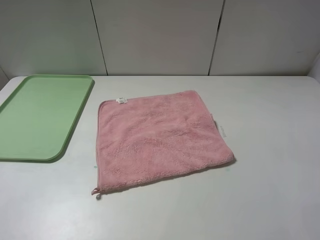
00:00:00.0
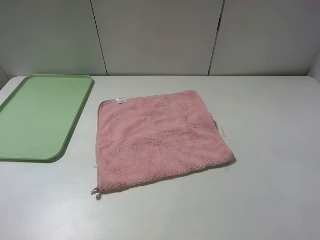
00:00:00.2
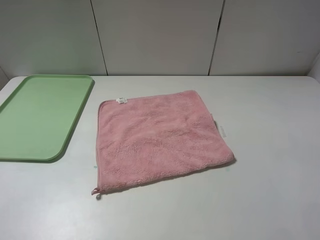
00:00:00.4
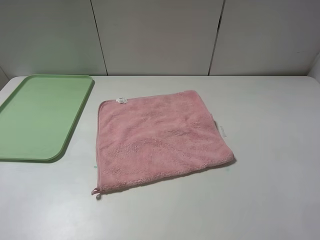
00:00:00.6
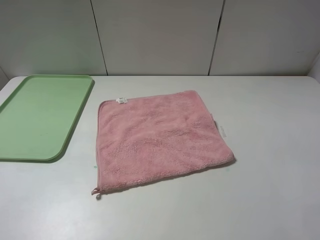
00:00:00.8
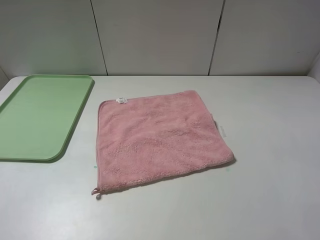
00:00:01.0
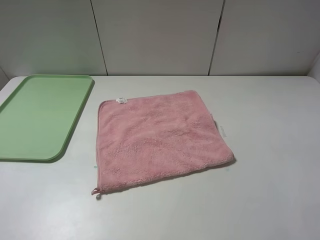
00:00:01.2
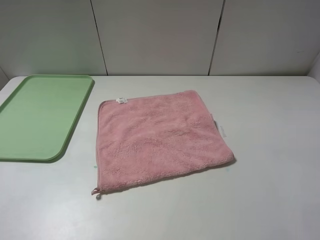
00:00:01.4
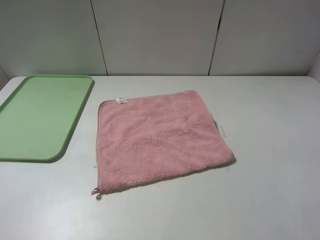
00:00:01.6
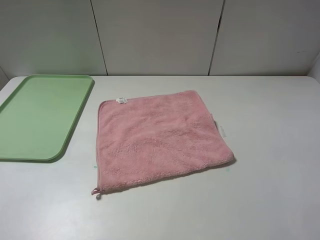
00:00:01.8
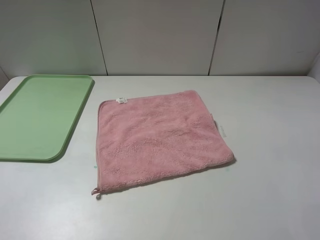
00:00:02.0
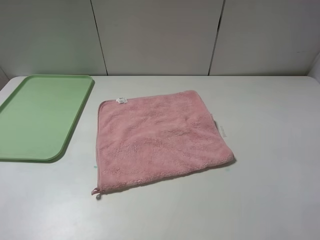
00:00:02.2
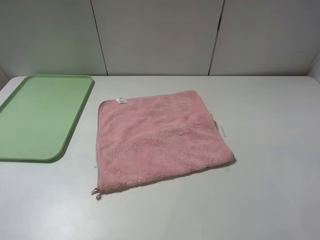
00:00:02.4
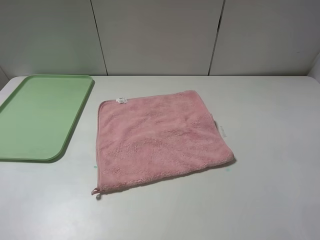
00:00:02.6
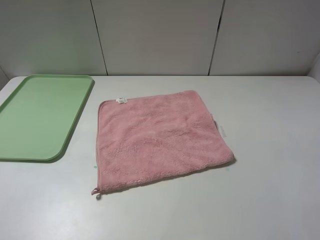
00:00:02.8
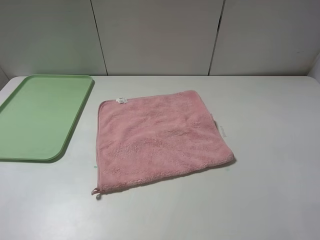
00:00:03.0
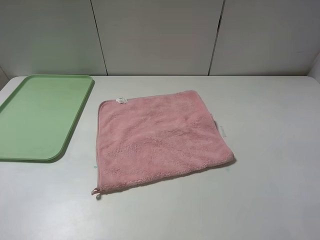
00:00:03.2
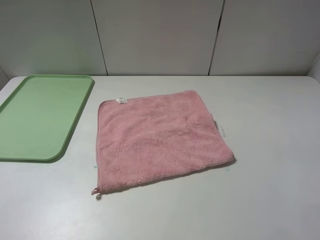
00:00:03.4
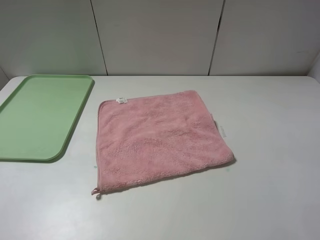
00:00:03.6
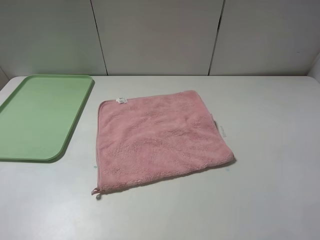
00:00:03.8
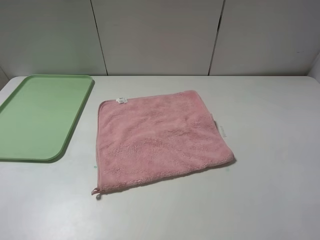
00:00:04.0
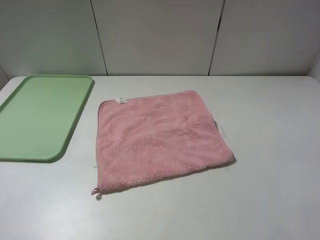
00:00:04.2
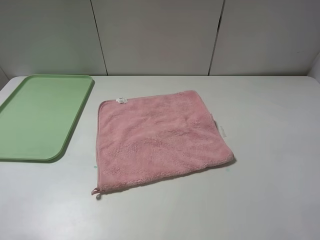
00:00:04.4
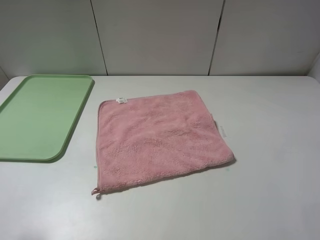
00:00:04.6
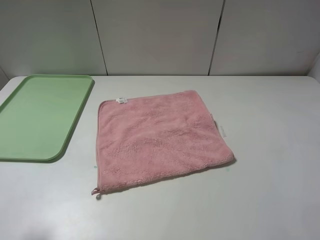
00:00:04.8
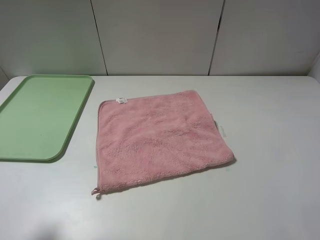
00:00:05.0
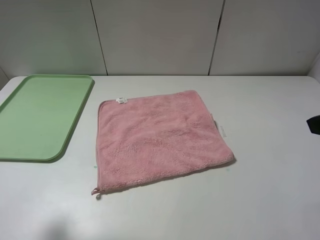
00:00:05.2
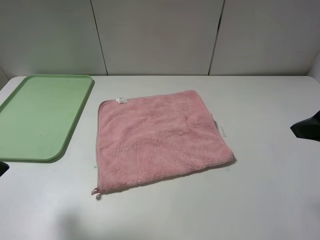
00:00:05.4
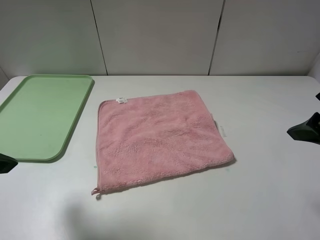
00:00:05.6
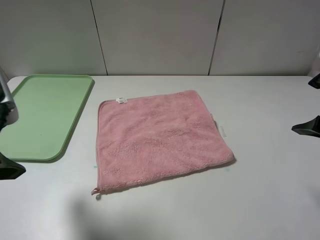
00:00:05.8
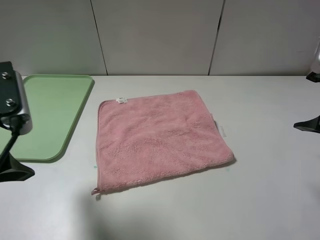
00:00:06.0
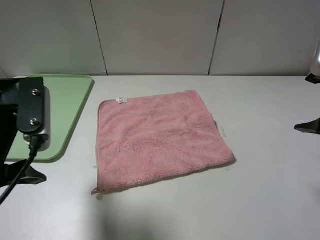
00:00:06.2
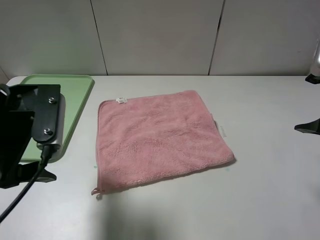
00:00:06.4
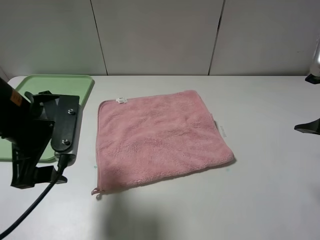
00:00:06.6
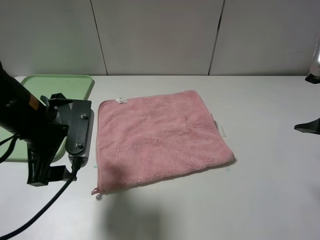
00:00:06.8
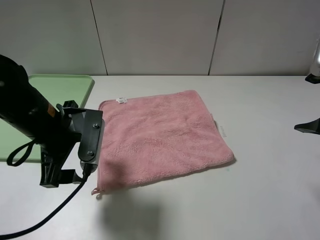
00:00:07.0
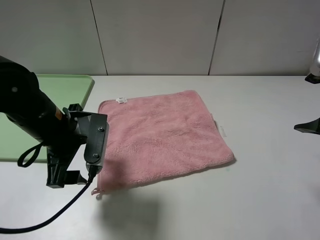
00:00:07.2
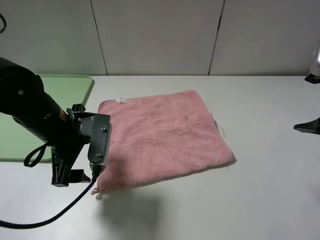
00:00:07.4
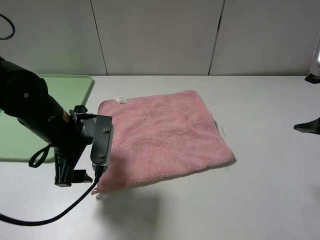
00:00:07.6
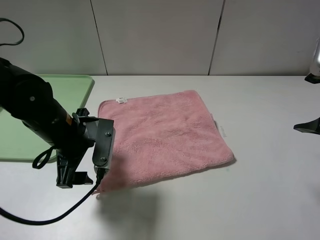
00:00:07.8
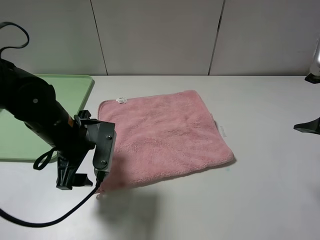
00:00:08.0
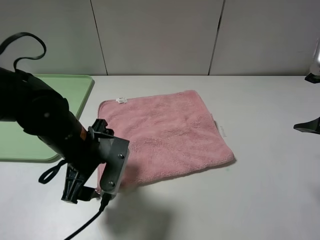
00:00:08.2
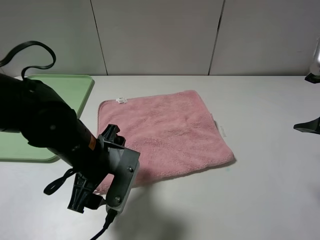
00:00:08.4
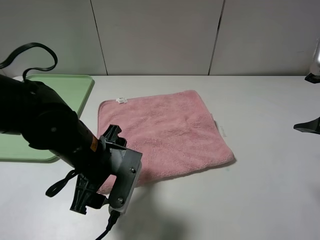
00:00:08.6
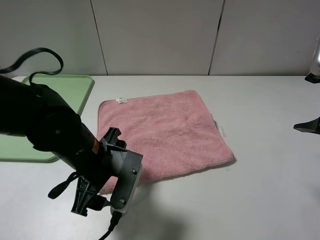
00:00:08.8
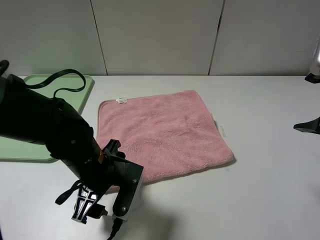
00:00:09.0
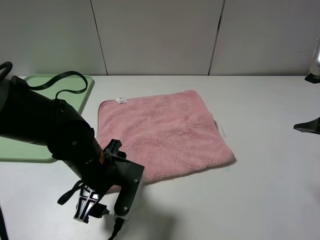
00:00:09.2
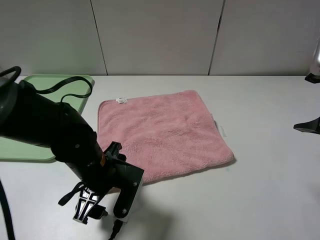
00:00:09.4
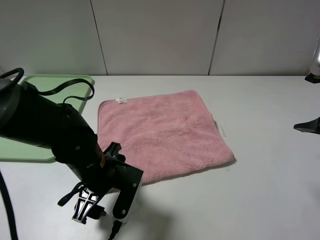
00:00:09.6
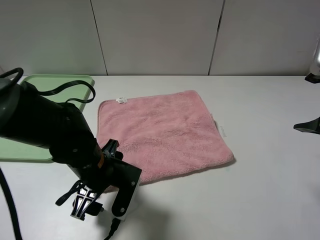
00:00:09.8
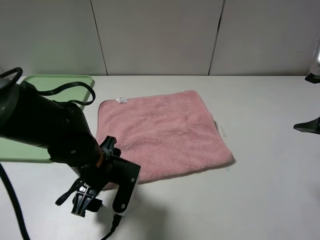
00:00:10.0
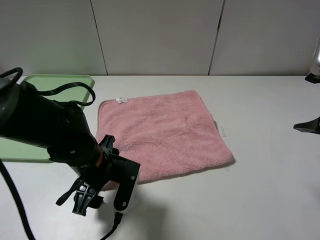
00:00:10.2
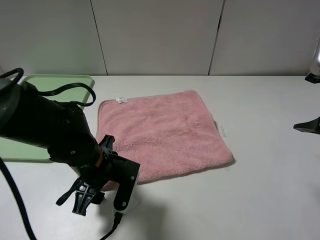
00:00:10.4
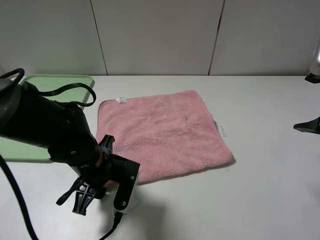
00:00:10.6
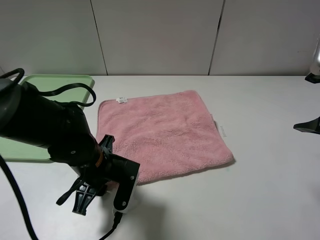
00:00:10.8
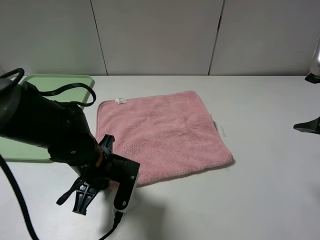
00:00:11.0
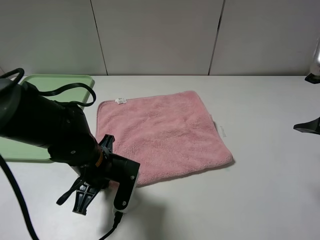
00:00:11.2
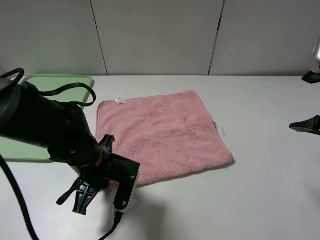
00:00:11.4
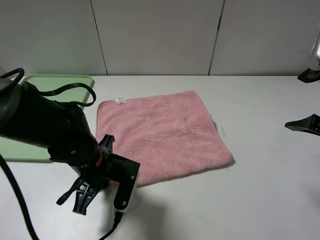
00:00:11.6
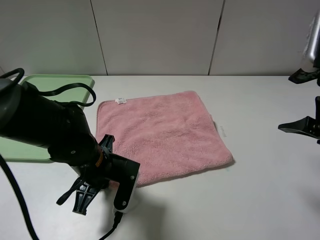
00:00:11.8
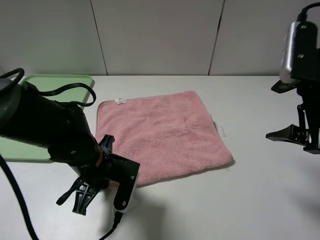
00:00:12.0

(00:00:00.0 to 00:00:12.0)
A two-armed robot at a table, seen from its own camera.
00:00:00.0 - 00:00:03.0: The two grippers keep their place.
00:00:04.4 - 00:00:06.0: The left gripper goes about 15 cm forward and to the right; the right gripper goes roughly 15 cm forward.
00:00:06.0 - 00:00:07.6: The left gripper goes some 15 cm downward, to the right and forward.
00:00:07.6 - 00:00:09.0: The left gripper moves to the right, about 5 cm.
00:00:09.0 - 00:00:10.4: The grippers stay close to where they were, moving slightly.
00:00:10.4 - 00:00:12.0: The left gripper closes up.

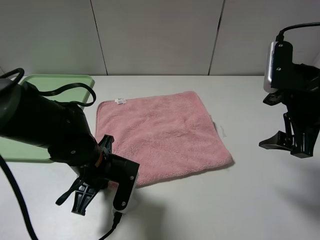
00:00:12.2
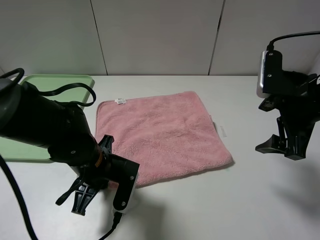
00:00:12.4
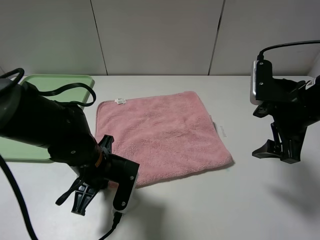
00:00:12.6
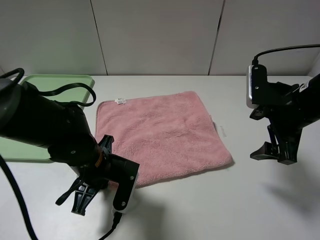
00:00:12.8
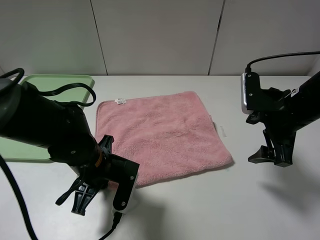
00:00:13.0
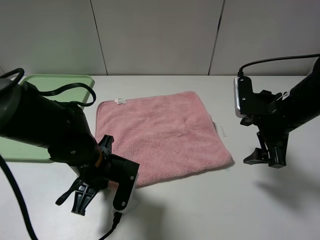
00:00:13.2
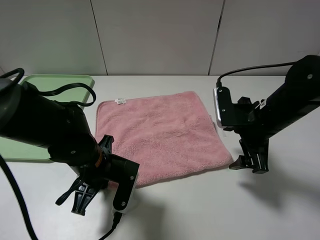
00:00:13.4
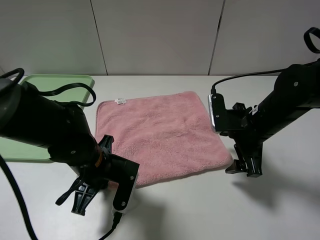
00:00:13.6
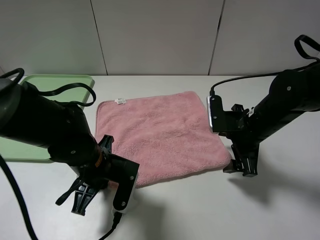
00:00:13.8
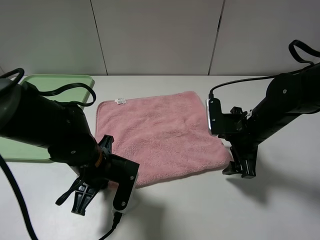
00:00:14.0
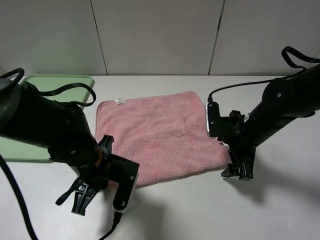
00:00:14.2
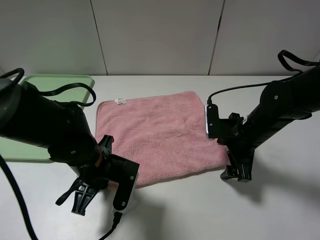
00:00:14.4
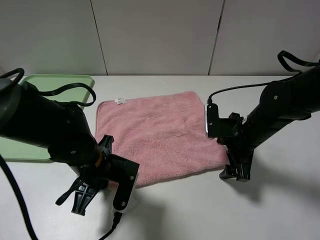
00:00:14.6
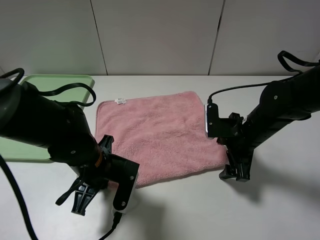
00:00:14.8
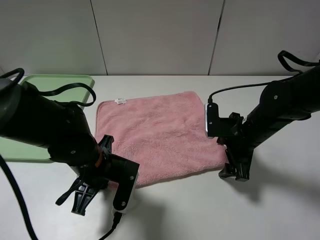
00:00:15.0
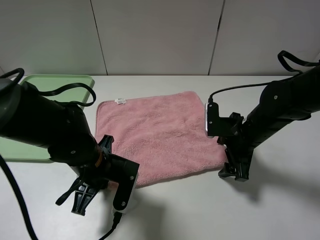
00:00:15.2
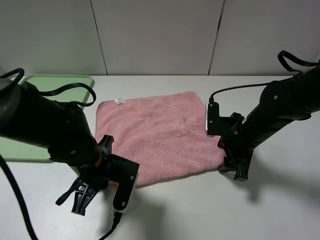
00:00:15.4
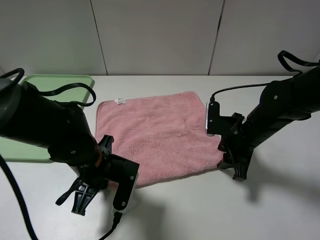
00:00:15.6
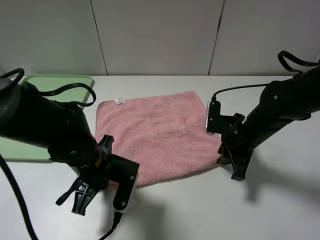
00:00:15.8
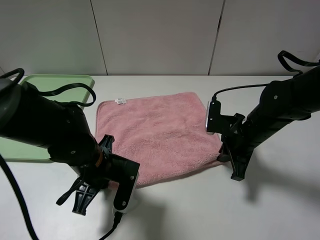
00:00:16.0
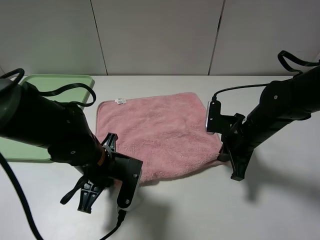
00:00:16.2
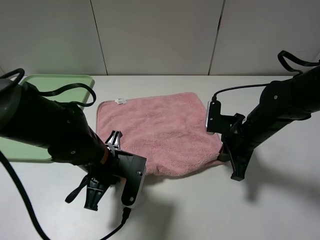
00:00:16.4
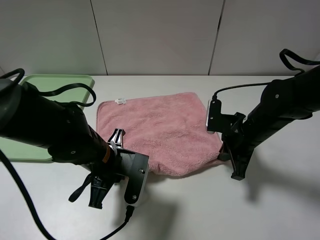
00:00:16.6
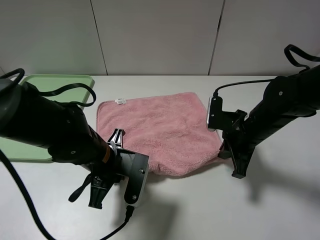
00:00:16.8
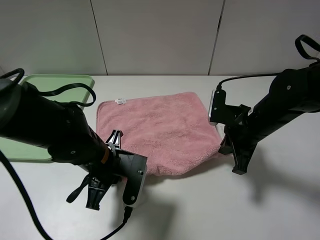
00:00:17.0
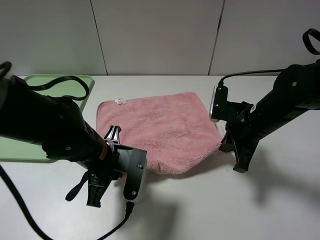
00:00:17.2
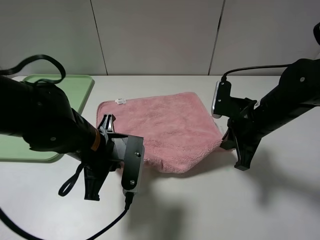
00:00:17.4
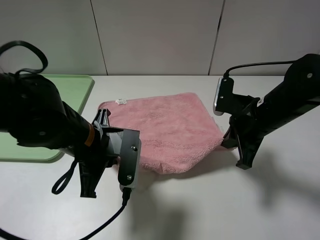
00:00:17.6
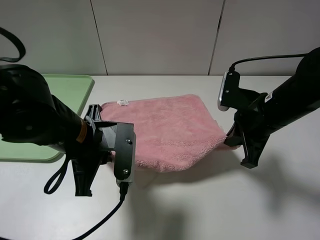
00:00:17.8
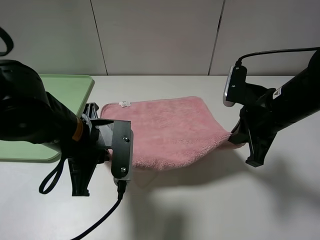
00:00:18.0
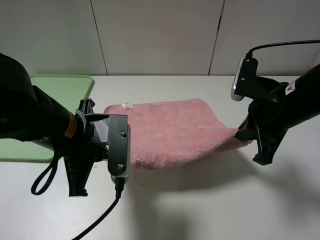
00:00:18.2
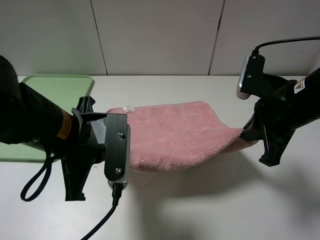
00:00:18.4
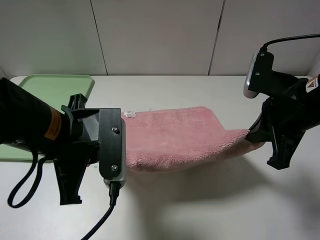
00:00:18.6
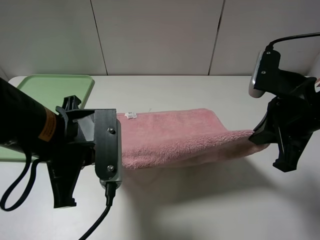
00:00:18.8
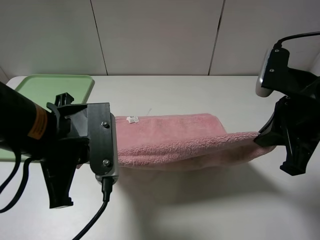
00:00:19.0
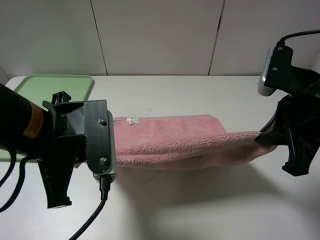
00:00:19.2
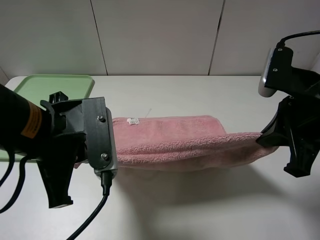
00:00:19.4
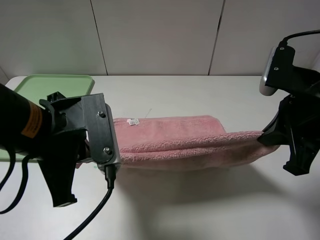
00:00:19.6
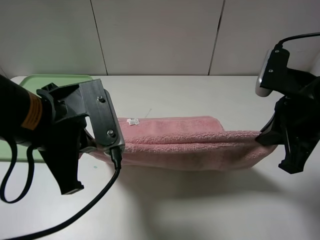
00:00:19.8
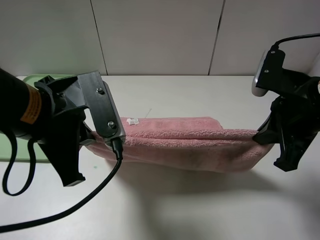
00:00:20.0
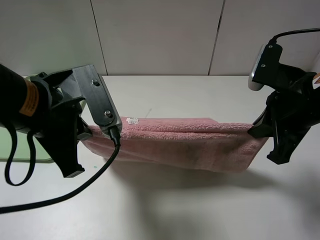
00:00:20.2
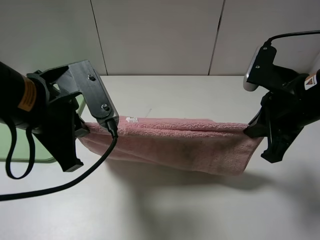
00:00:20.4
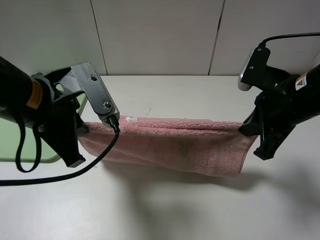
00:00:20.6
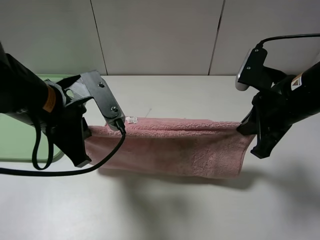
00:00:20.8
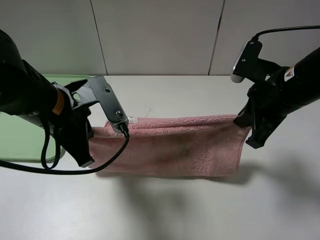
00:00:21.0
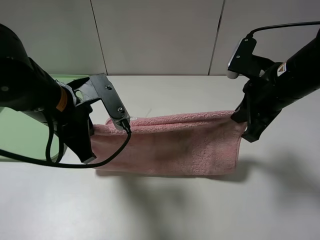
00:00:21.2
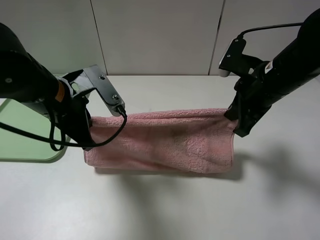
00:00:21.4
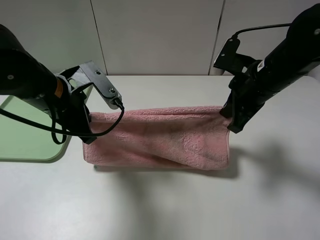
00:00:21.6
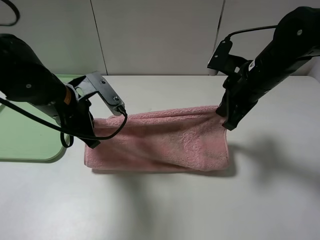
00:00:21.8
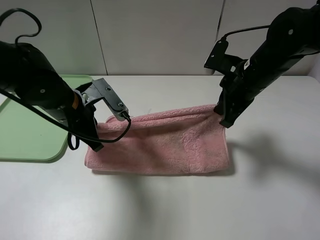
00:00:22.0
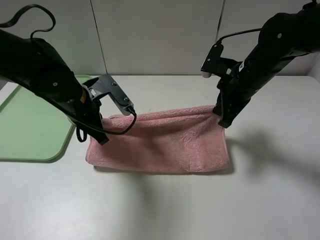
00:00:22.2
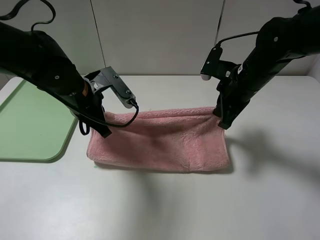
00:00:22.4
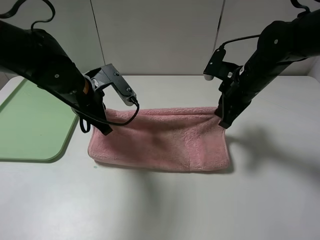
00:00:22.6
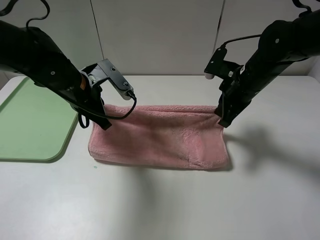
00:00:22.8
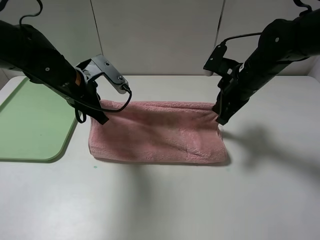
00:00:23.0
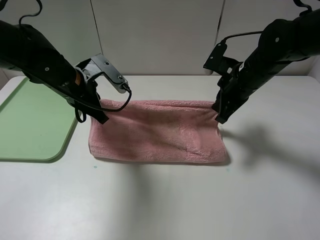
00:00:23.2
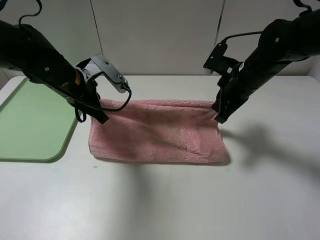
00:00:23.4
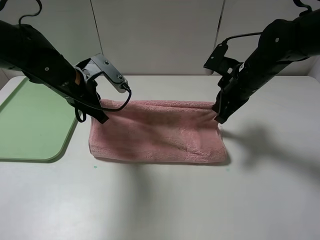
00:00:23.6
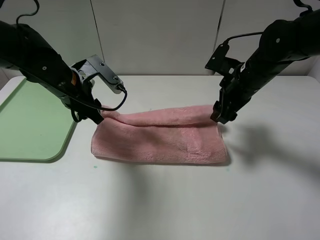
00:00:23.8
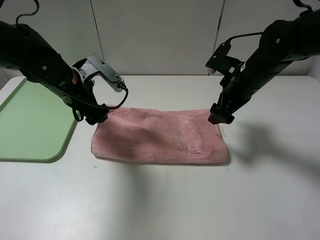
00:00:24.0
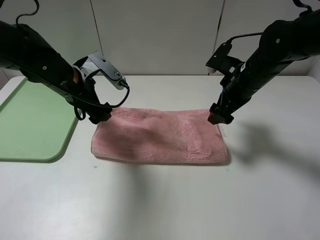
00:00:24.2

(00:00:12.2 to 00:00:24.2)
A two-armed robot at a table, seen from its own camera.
Step, 00:00:12.2 - 00:00:24.2: Fold the pink towel upwards.
00:00:12.2 - 00:00:13.8: The right gripper goes about 10 cm downward and to the left.
00:00:13.8 - 00:00:15.2: The grippers make only small movements.
00:00:15.2 - 00:00:16.6: The right gripper closes up.
00:00:16.6 - 00:00:18.2: Both grippers move upward, approximately 10 cm.
00:00:18.2 - 00:00:19.8: The left gripper moves some 5 cm.
00:00:19.8 - 00:00:21.2: Both grippers move forward, about 5 cm.
00:00:21.2 - 00:00:22.6: The two grippers go some 10 cm forward.
00:00:22.6 - 00:00:24.2: The left gripper opens its fingers. Meanwhile the right gripper opens its fingers.
